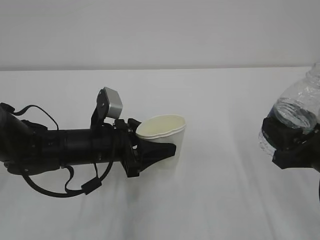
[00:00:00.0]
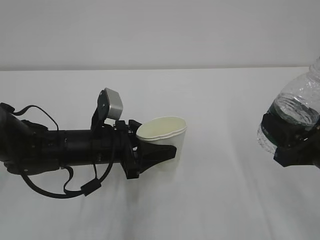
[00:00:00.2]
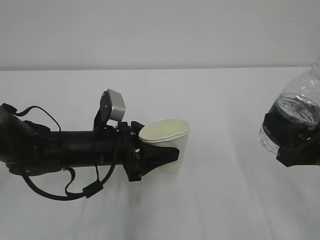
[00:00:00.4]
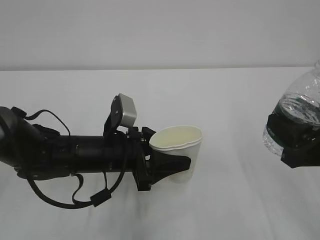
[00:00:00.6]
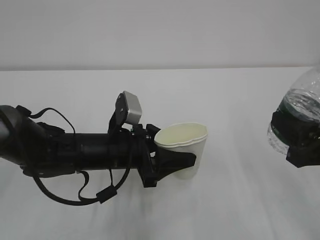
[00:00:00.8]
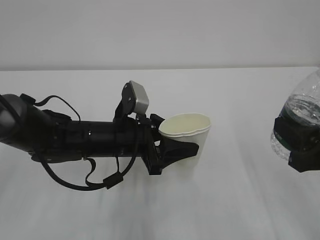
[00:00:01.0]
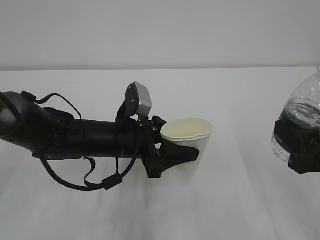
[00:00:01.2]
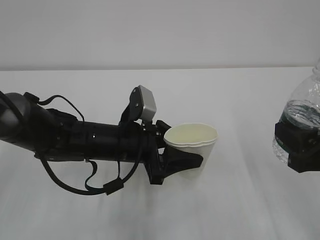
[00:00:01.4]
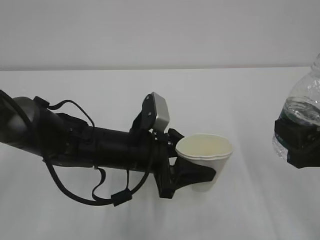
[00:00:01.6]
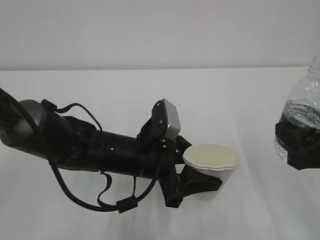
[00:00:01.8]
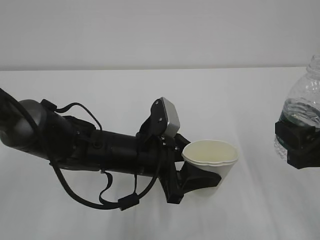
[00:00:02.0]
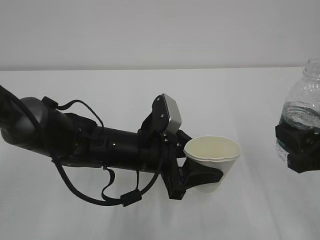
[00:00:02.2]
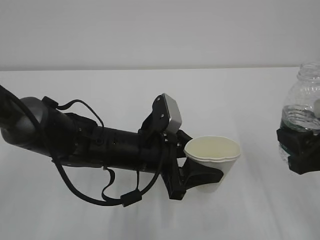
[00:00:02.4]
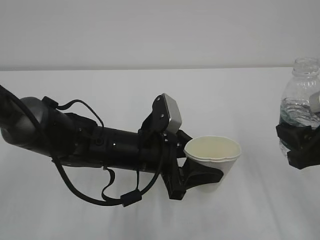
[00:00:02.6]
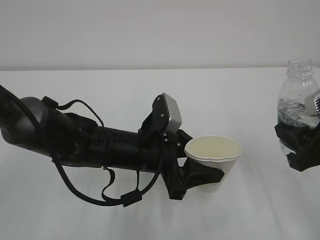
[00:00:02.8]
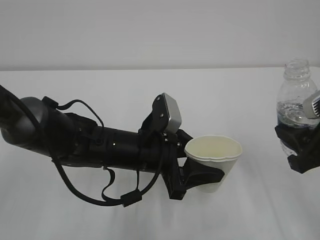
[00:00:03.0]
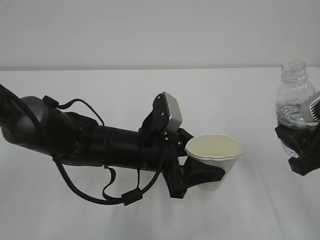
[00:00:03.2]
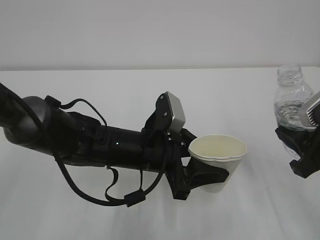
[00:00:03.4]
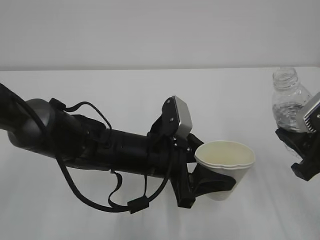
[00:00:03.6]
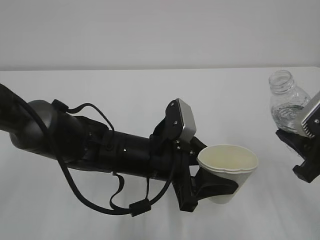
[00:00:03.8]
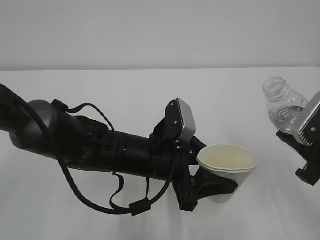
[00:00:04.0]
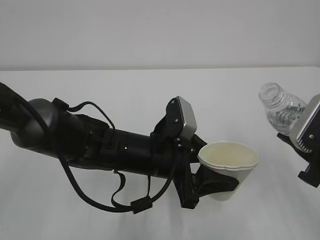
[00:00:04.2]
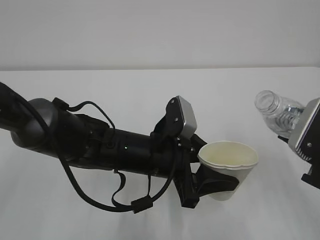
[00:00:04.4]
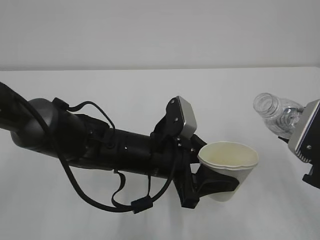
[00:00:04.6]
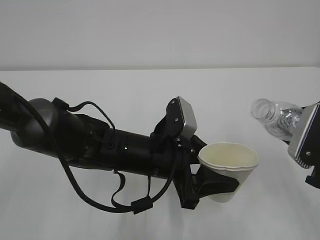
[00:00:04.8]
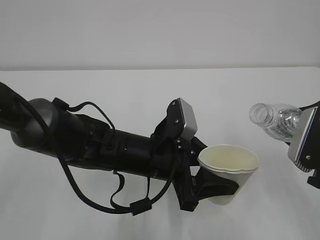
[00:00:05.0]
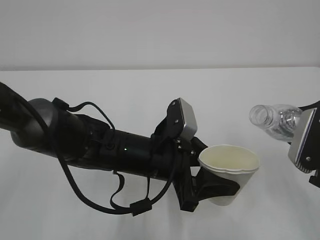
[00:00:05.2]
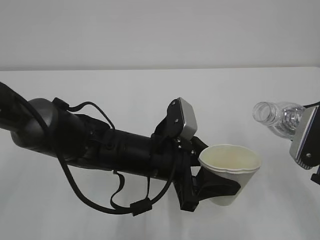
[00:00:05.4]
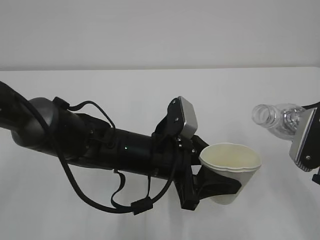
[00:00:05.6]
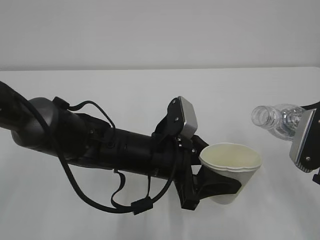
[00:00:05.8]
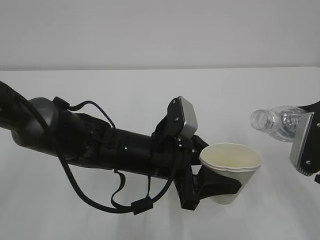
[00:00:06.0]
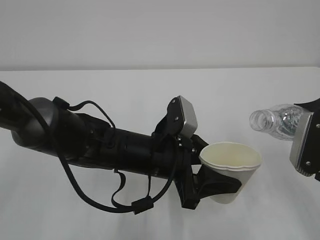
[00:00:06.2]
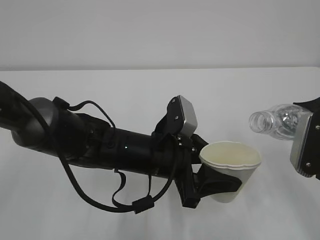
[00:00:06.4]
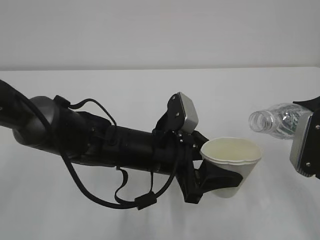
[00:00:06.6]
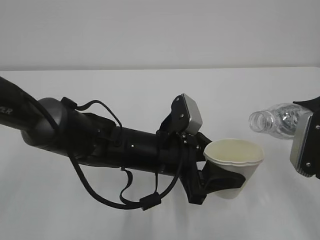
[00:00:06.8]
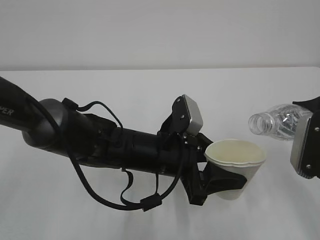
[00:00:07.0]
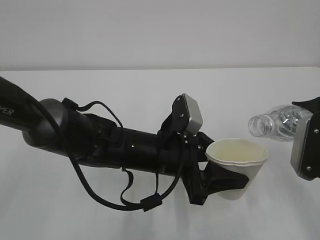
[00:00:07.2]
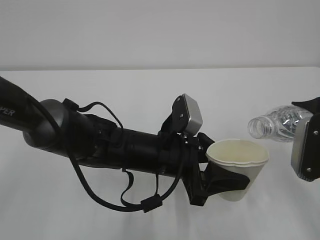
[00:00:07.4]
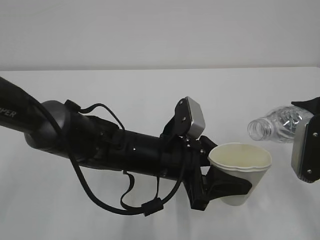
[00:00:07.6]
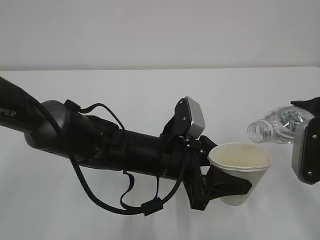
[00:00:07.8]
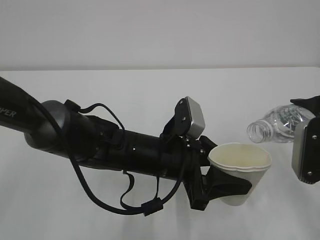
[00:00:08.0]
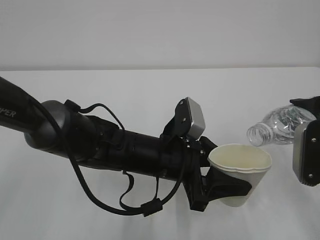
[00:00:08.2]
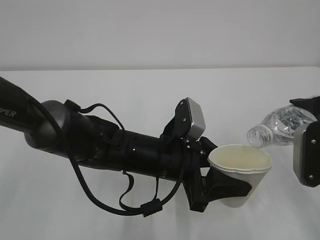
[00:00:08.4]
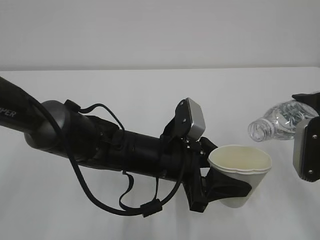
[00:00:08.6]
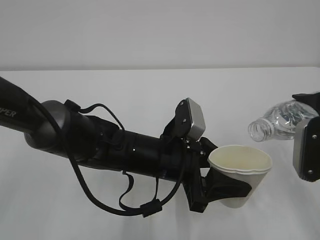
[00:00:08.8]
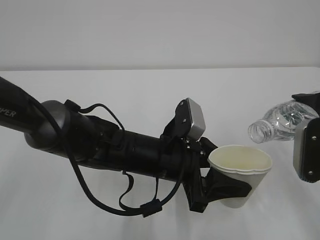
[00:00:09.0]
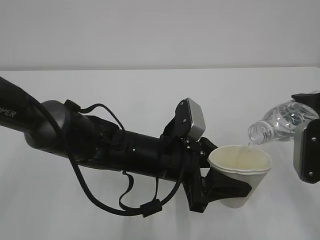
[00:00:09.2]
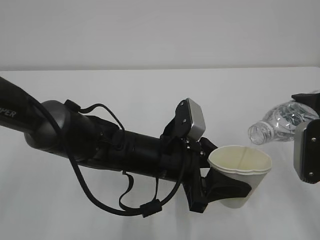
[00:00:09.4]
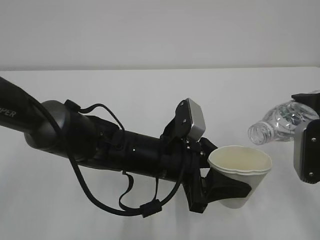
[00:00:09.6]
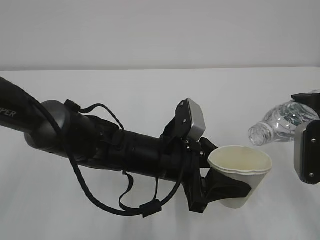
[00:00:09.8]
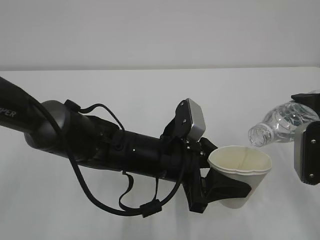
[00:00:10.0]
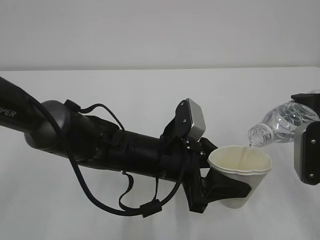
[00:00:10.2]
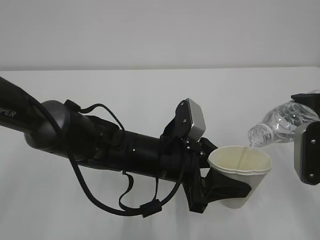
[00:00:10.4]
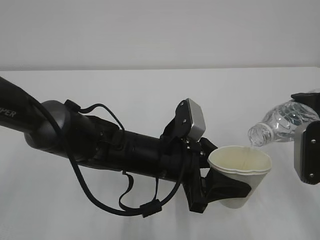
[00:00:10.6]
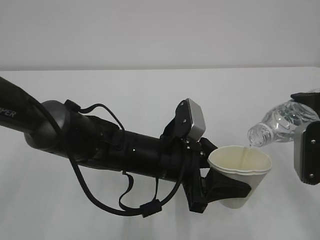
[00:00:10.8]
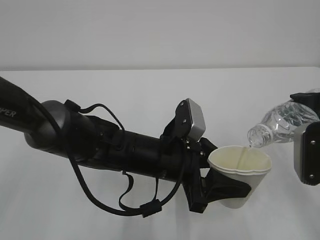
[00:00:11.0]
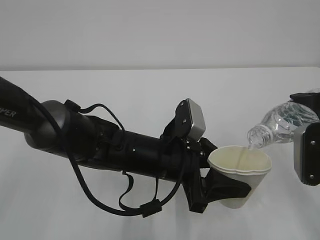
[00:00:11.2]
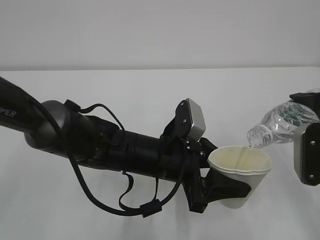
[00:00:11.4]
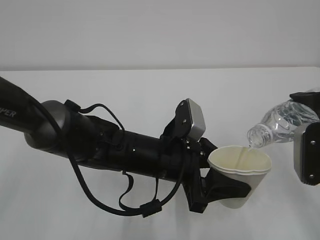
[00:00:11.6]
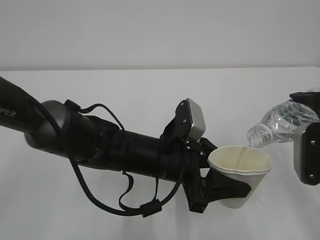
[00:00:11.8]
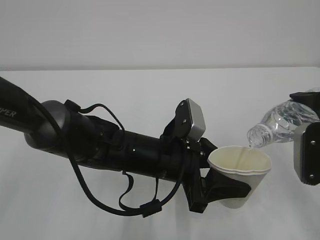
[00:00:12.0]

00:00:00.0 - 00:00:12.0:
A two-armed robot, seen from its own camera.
00:00:00.0 - 00:00:01.6: The left gripper goes about 5 cm to the right.
00:00:01.6 - 00:00:03.0: The grippers stay close to where they were, moving slightly.
00:00:04.4 - 00:00:06.0: The grippers make only small movements.
00:00:06.0 - 00:00:09.0: The grippers move only a little.
00:00:09.0 - 00:00:12.0: Neither gripper changes place.

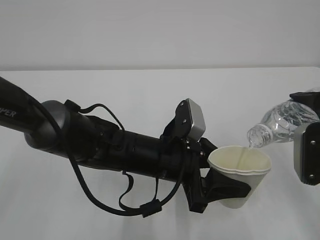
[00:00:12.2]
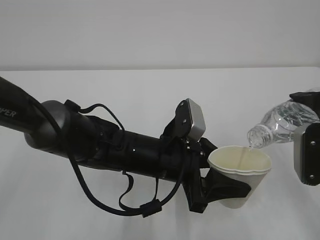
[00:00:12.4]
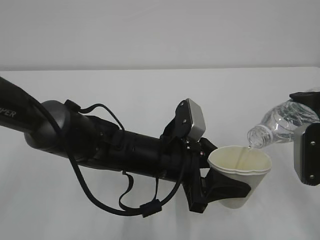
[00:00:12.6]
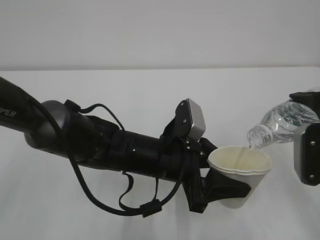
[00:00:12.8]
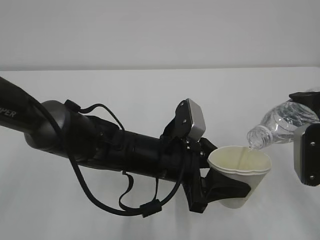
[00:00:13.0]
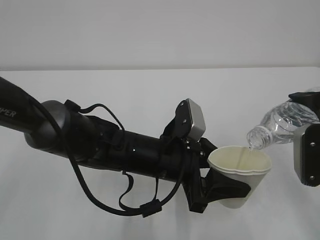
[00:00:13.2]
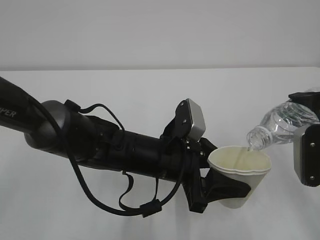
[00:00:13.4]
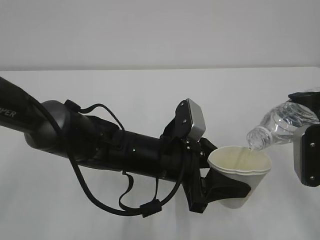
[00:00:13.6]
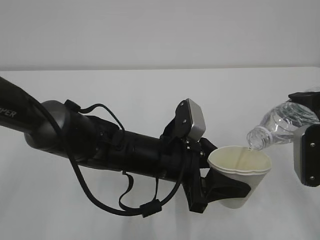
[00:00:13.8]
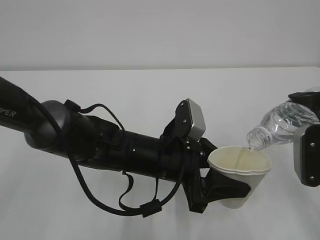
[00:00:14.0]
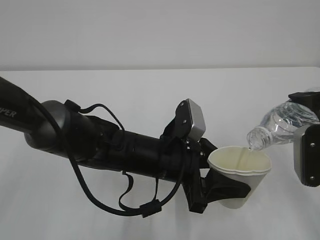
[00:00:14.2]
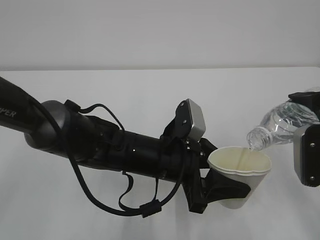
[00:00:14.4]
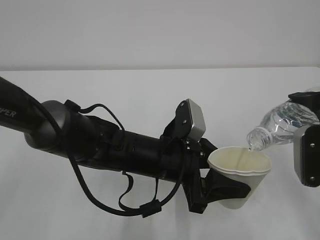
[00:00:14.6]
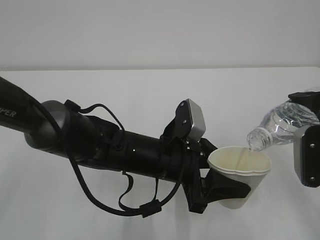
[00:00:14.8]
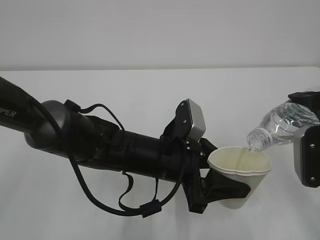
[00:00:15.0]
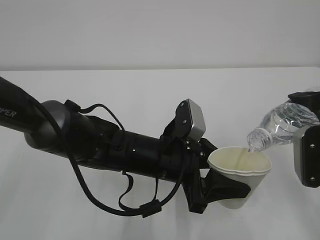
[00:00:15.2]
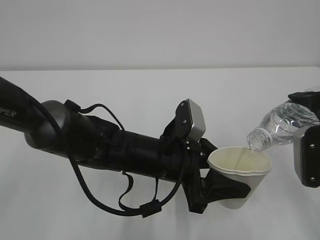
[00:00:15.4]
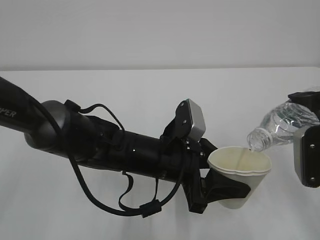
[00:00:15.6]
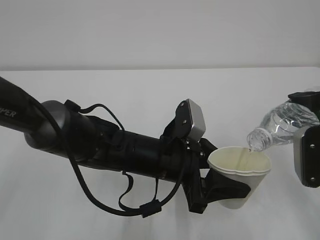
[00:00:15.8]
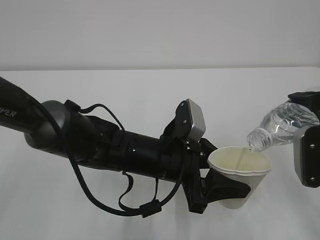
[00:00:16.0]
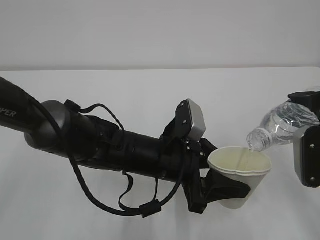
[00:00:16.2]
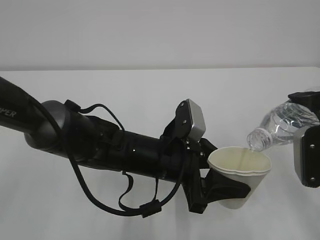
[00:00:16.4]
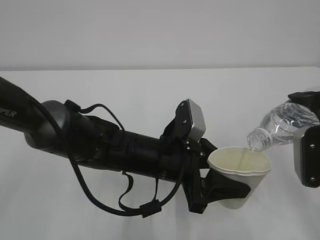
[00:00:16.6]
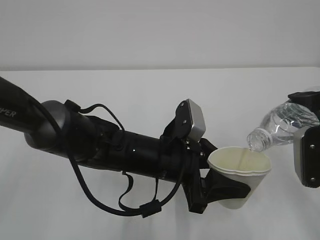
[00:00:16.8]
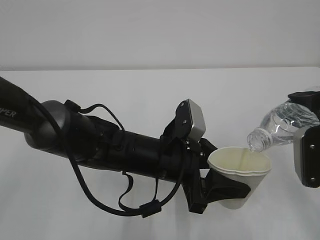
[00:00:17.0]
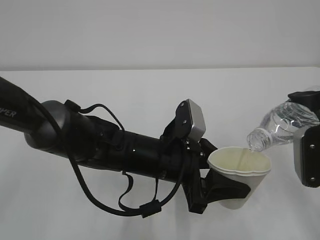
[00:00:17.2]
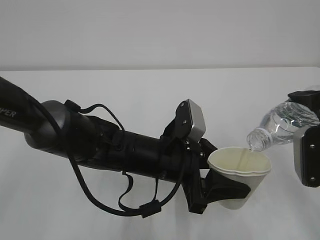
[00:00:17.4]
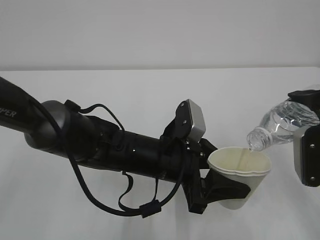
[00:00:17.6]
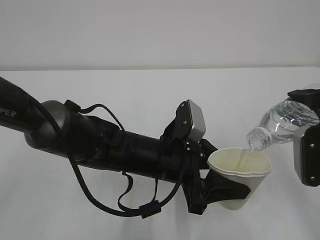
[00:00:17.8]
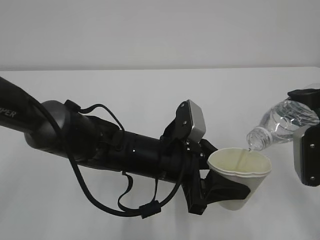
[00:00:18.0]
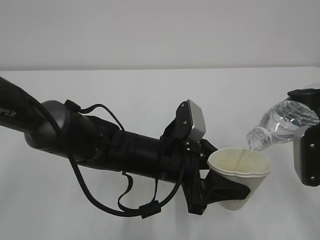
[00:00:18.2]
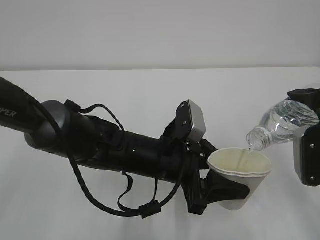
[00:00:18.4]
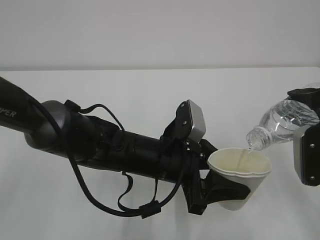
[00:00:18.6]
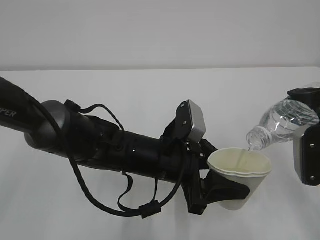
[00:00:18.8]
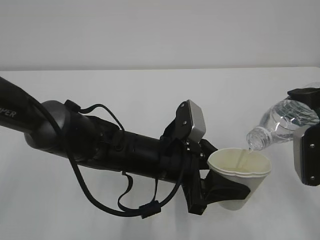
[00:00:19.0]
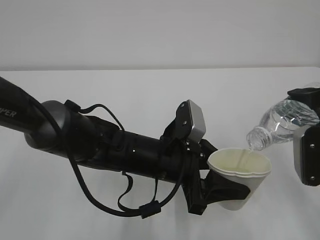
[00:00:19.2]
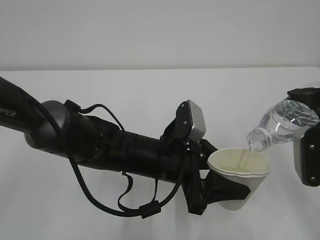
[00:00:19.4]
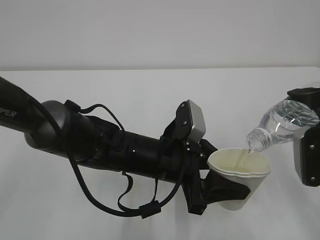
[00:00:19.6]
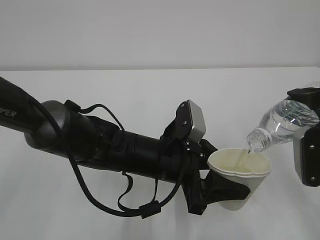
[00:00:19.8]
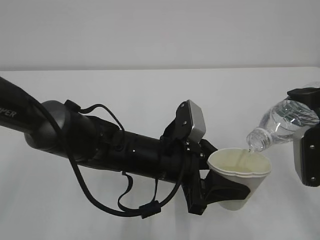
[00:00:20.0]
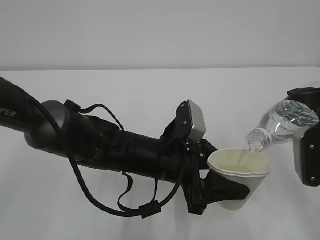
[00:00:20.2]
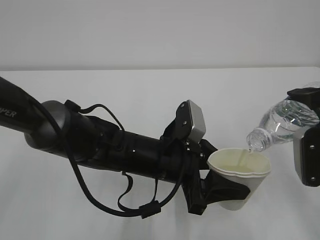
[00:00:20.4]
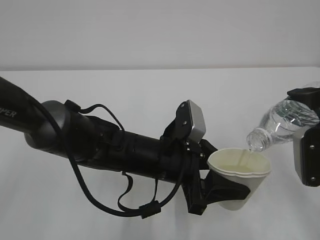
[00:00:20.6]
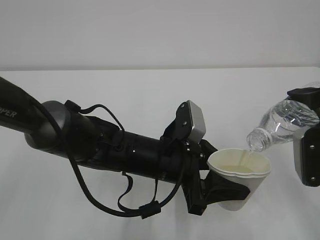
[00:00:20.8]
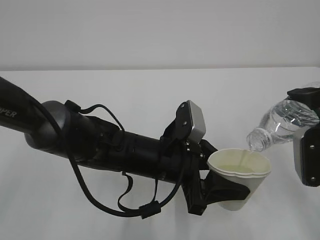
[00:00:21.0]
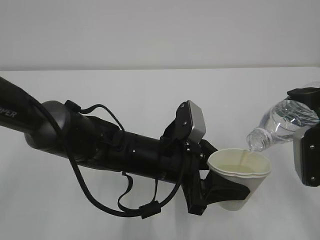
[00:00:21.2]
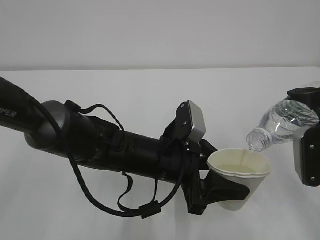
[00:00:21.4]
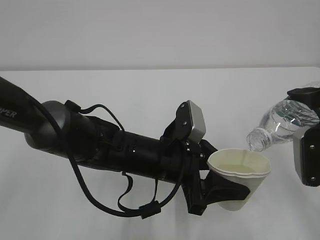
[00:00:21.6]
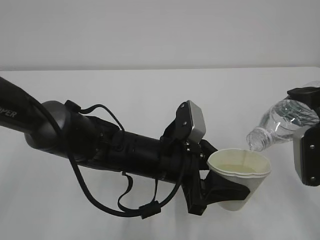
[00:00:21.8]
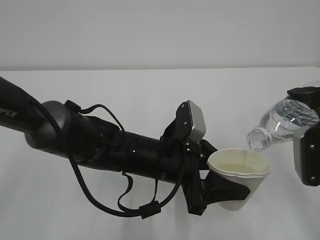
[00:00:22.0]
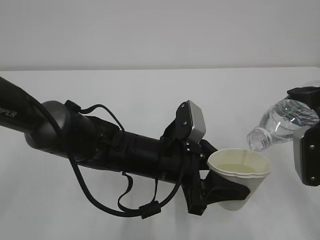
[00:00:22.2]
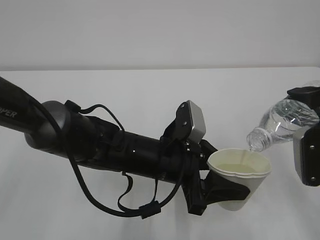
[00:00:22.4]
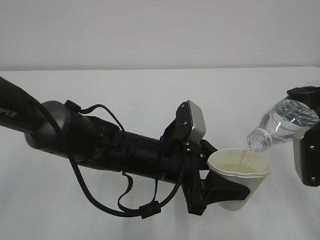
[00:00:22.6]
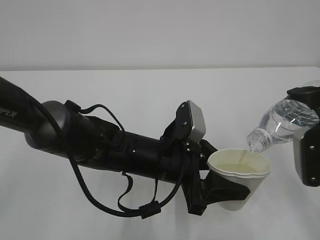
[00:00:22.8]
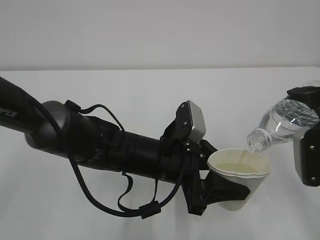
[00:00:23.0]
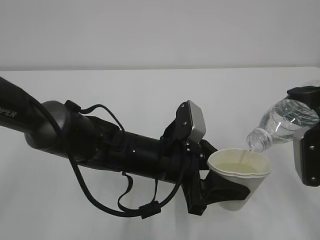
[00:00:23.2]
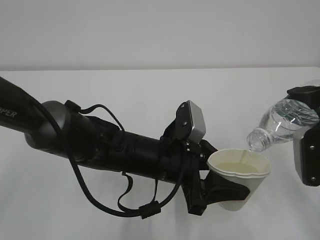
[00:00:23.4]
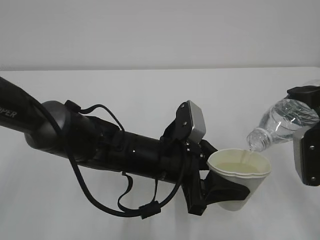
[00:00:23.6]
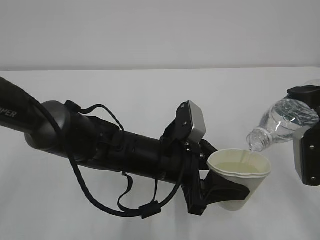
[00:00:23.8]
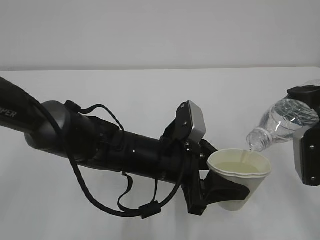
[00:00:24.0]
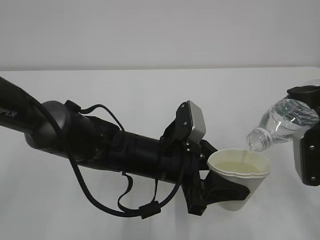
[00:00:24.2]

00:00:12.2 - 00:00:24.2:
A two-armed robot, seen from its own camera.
00:00:12.2 - 00:00:18.2: Both grippers stay put.
00:00:18.2 - 00:00:24.2: The two grippers keep their place.
